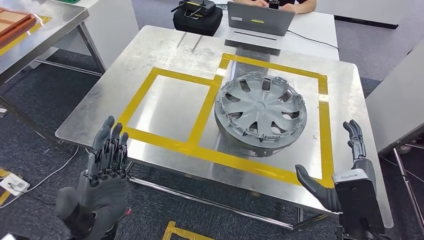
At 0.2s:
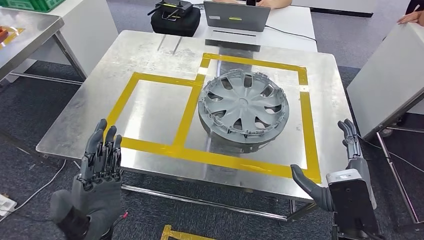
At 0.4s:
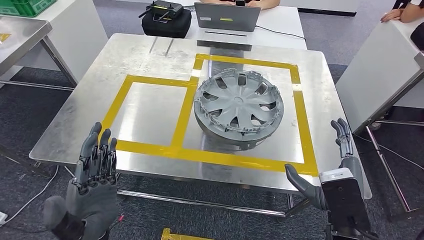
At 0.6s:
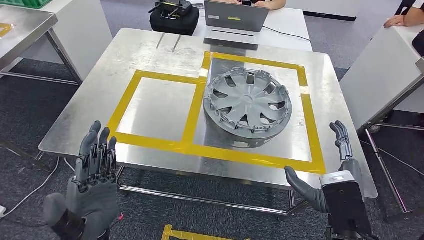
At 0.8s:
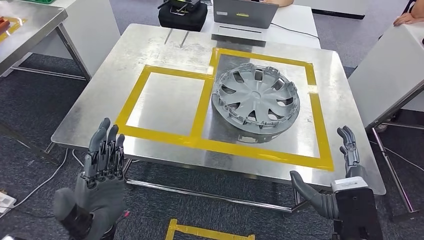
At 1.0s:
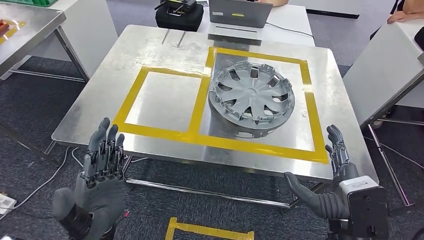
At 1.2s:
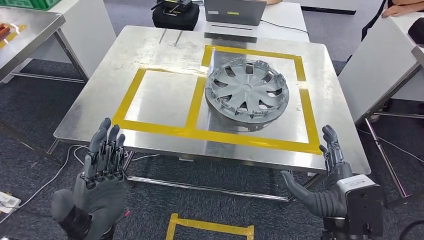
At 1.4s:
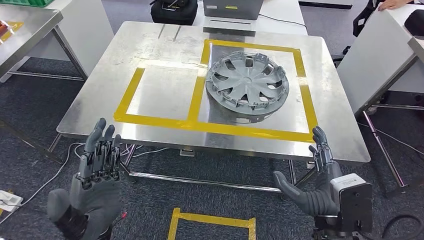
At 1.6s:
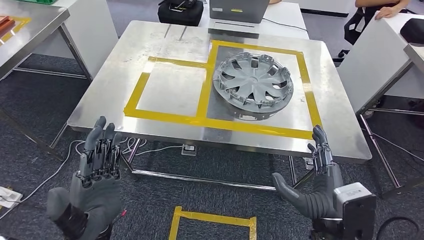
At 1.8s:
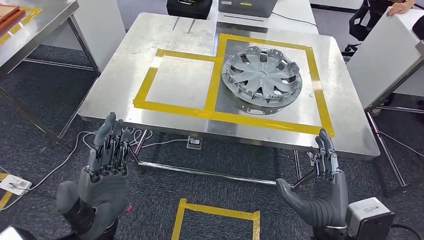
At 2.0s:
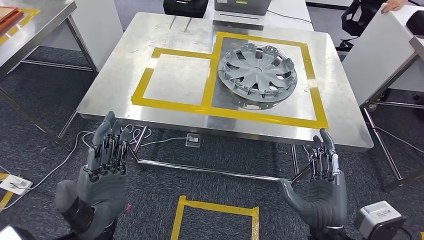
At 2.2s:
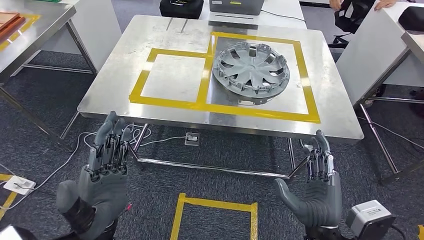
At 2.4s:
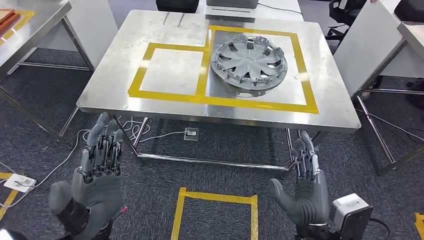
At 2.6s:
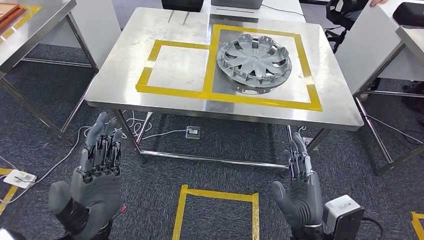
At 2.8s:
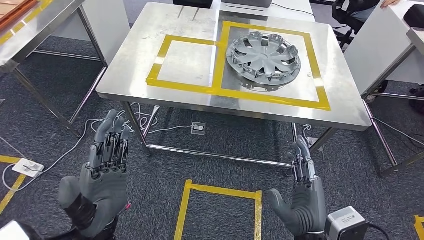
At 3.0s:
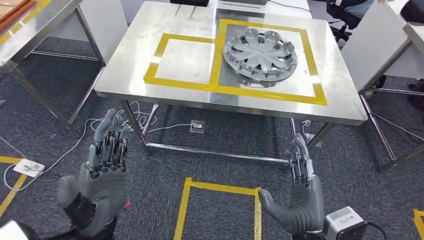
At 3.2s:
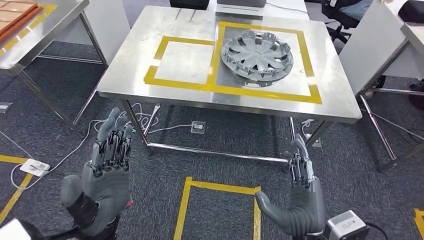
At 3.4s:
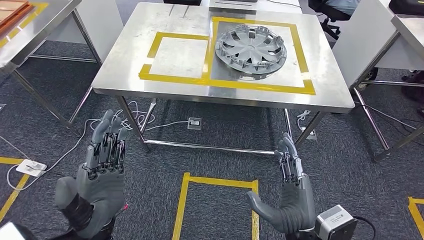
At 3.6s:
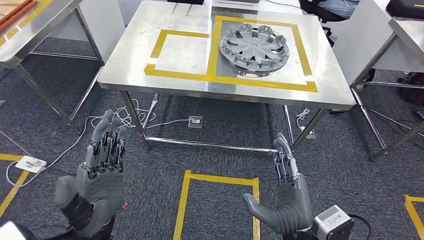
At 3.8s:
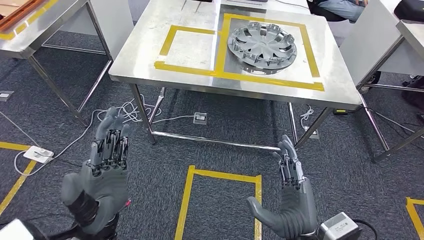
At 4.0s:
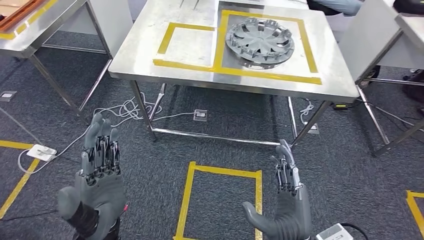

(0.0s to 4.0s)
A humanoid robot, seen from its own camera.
Step, 1.2s - 4.0s: Return to the initial position at the workbench.
